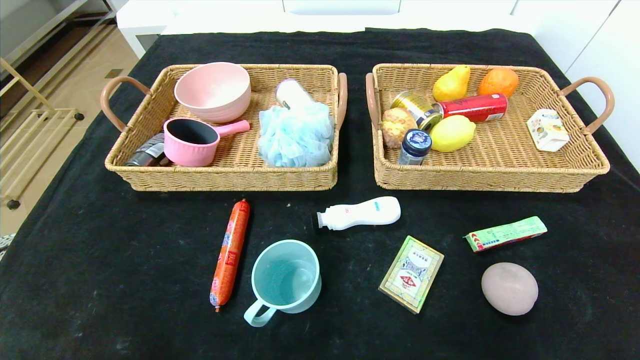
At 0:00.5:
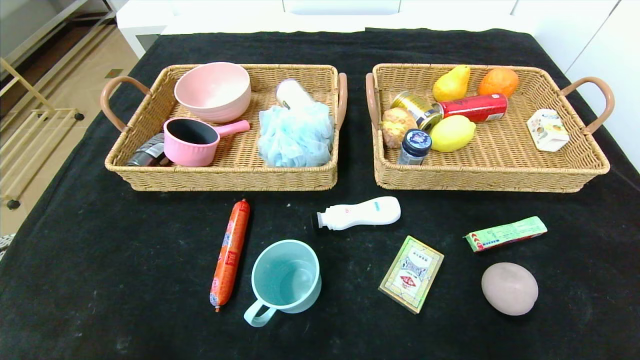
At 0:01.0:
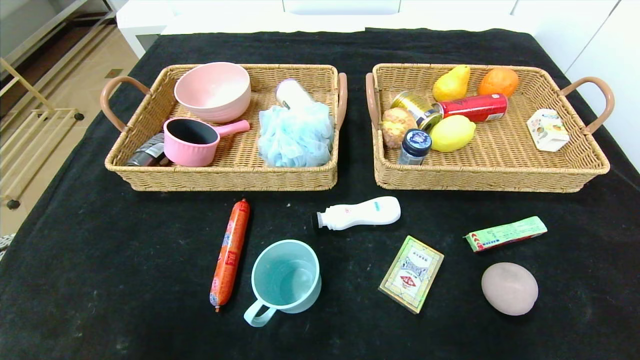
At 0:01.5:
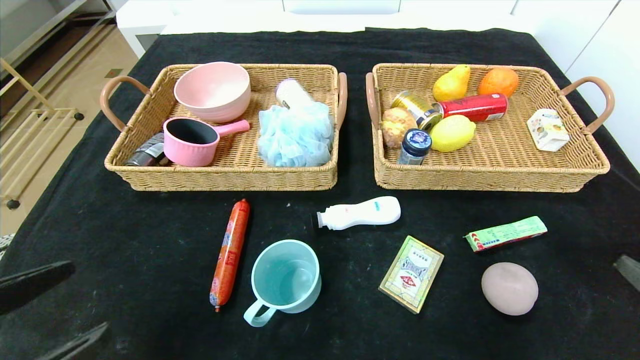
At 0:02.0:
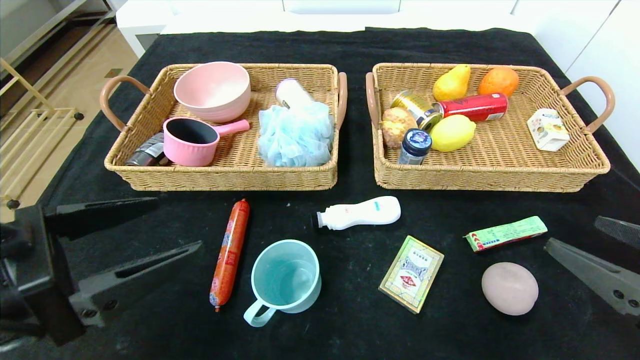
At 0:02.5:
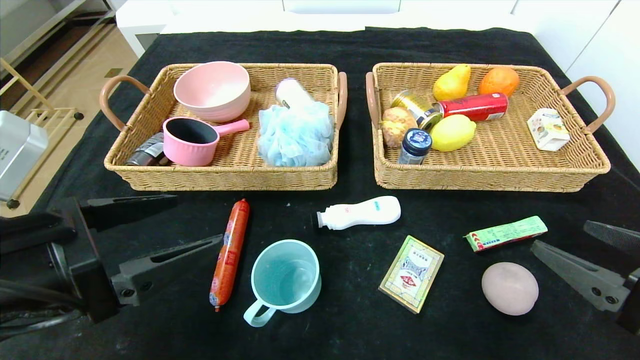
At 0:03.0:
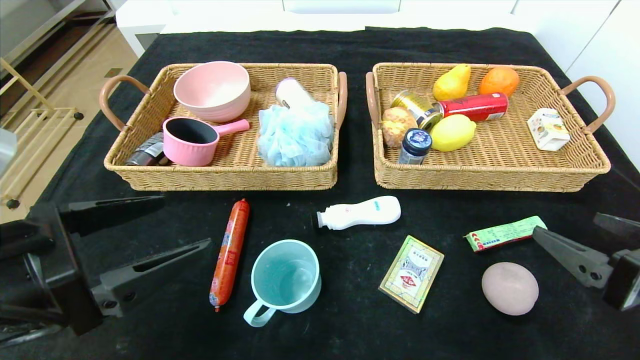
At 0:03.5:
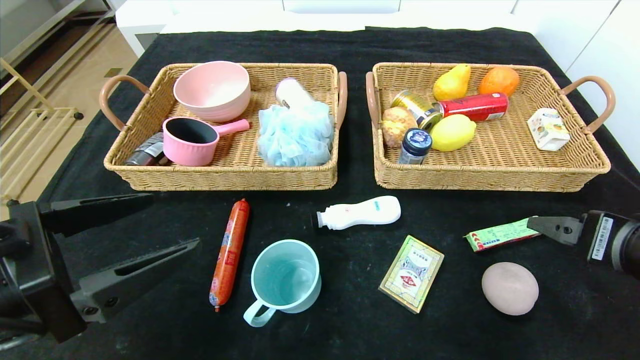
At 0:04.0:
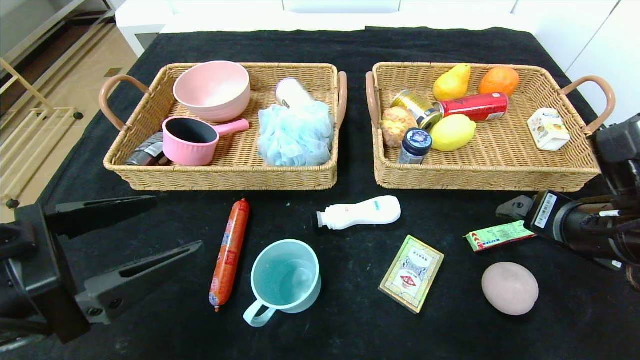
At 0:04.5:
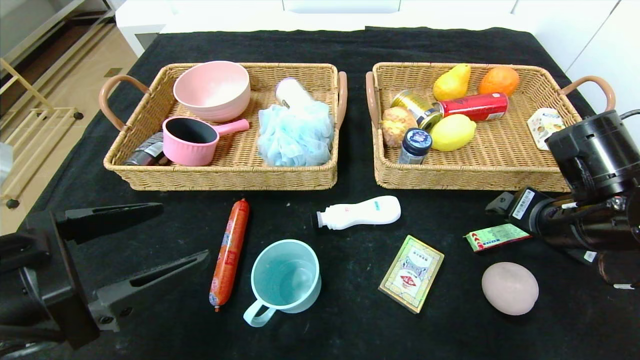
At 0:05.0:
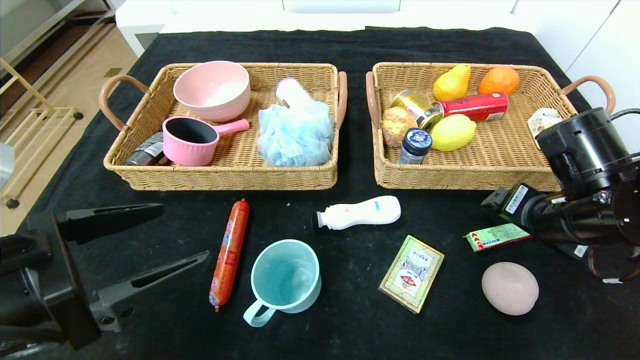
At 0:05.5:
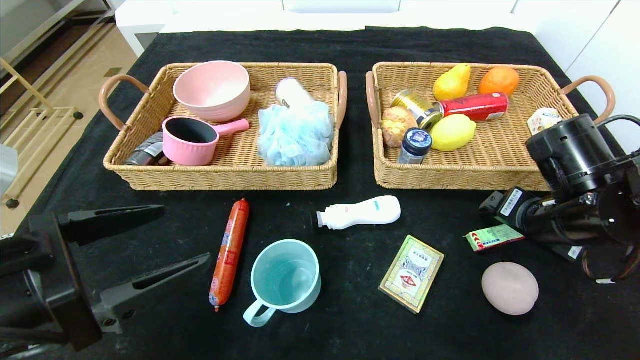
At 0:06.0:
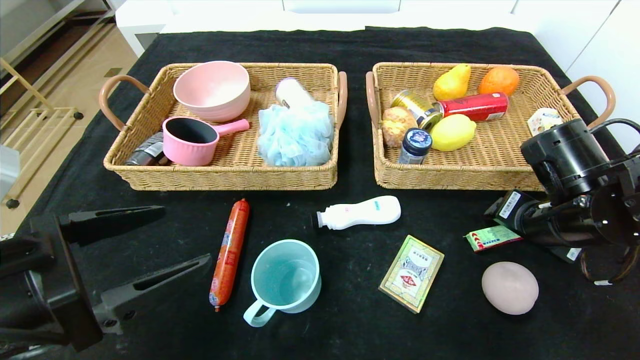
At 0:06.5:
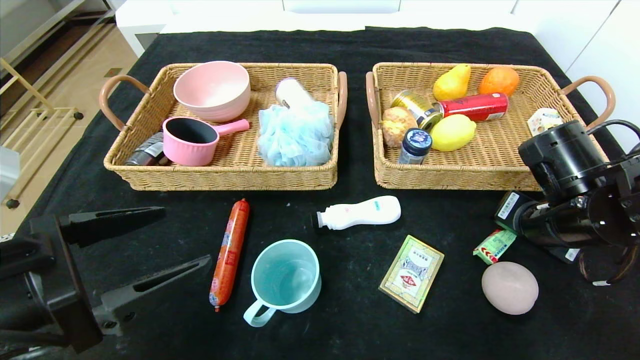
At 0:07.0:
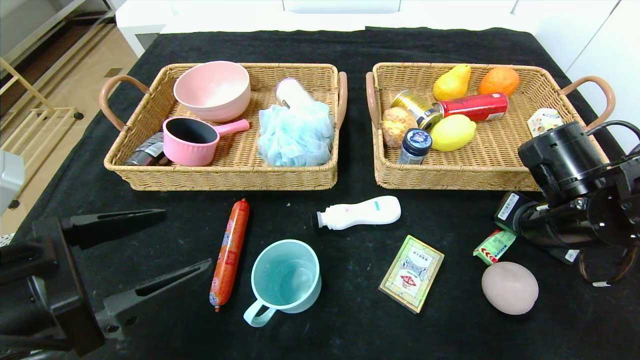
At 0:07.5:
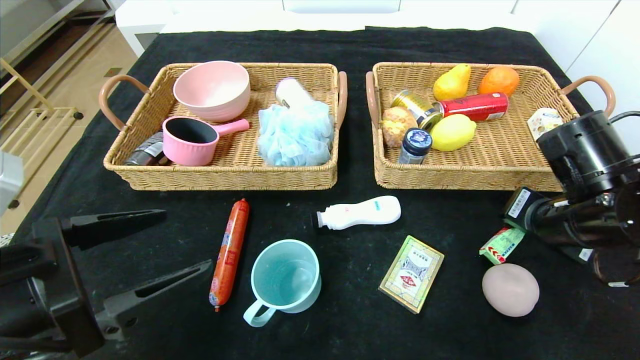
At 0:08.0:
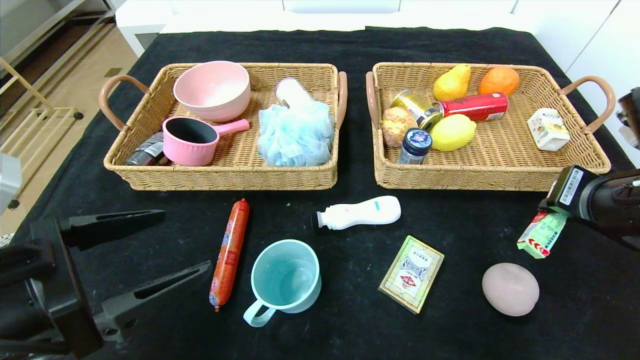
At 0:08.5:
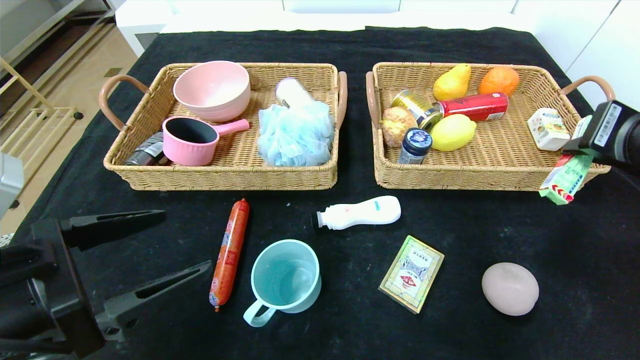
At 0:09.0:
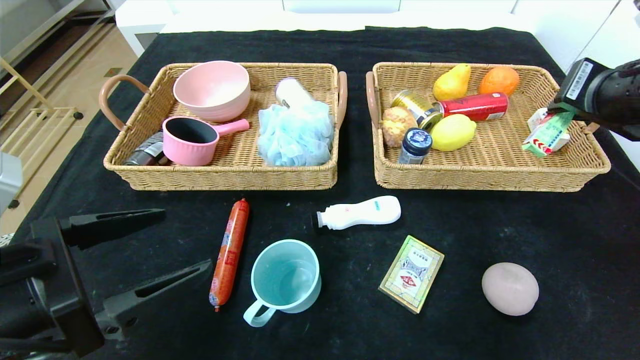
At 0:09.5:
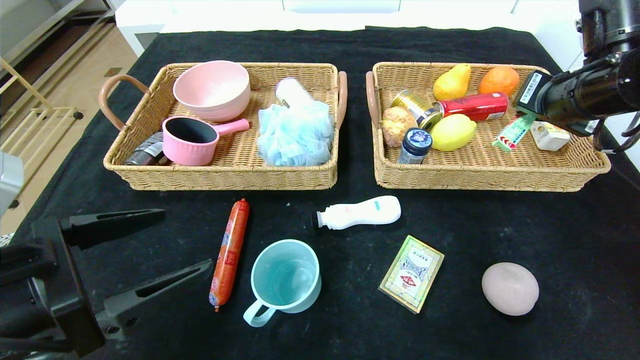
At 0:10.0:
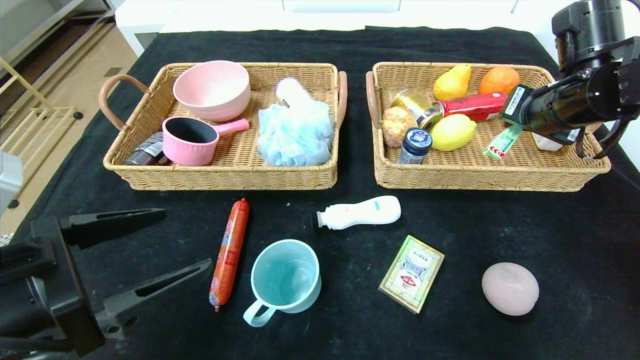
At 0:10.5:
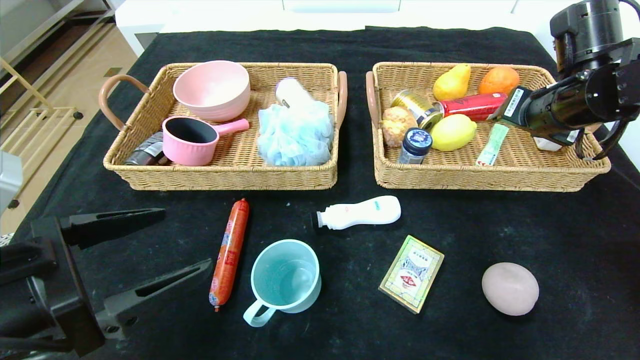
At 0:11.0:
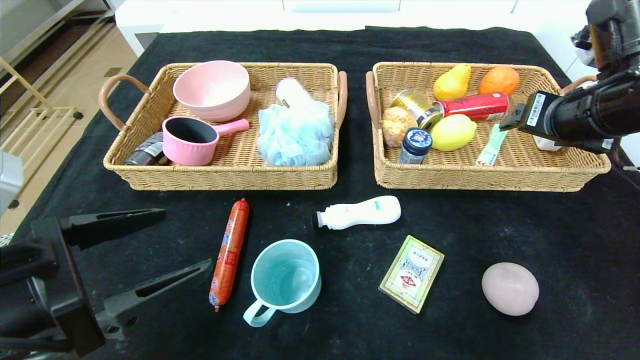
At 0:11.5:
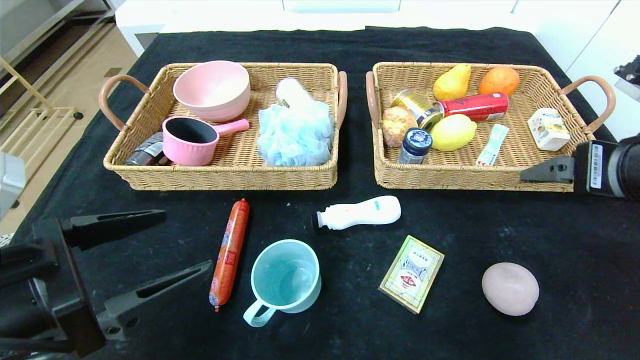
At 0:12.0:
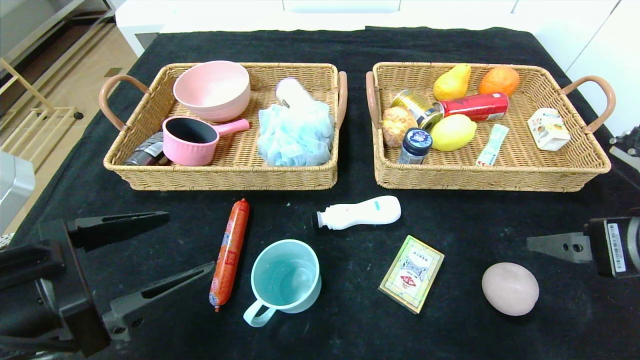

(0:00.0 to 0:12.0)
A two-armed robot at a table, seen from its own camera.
Step, 0:00.0 - 0:11.5: Pick up the fruit fudge and put it in the right basket.
0:00.0 - 0:02.0: The grippers both shift upward and forward by approximately 20 cm.
0:02.0 - 0:04.0: The right gripper travels forward by about 10 cm.
0:04.0 - 0:06.0: The right gripper moves forward, approximately 5 cm.
0:06.0 - 0:08.0: The right gripper goes some 10 cm upward and backward, and closes up.
0:08.0 - 0:10.0: The right gripper heads forward, covering some 15 cm.
0:10.0 - 0:12.0: The right gripper travels backward by some 20 cm, and opens.

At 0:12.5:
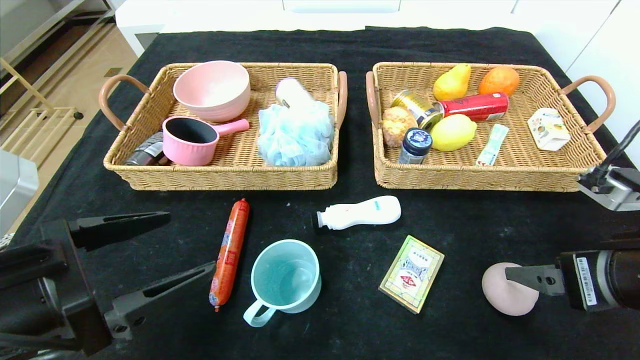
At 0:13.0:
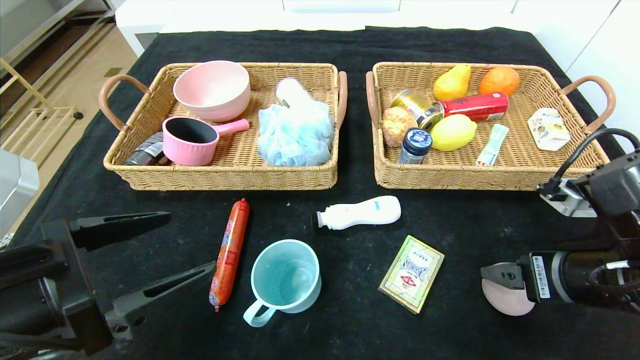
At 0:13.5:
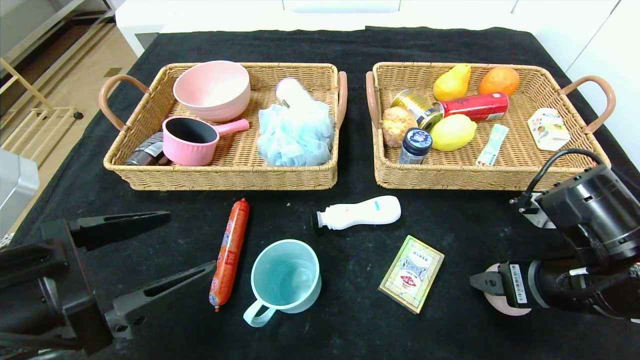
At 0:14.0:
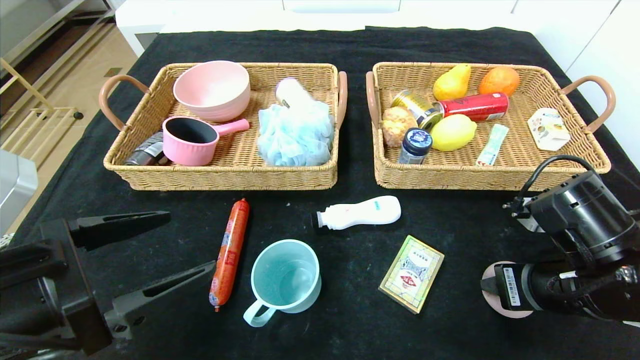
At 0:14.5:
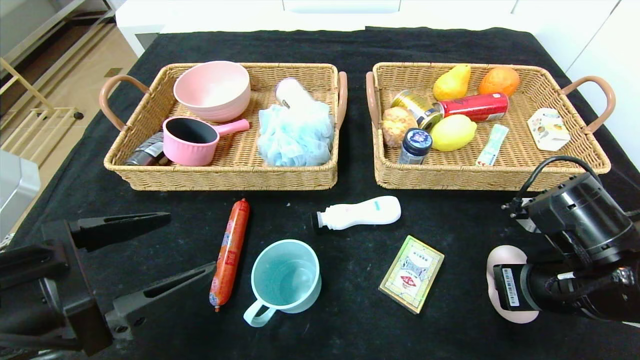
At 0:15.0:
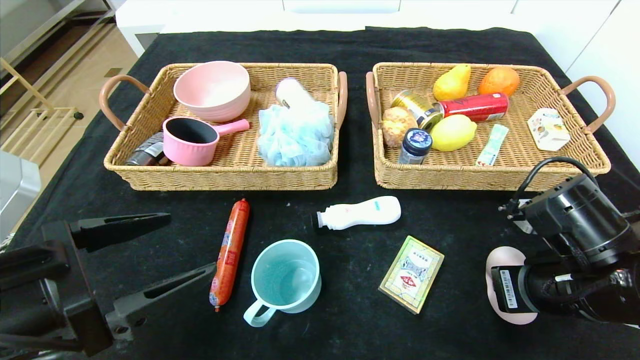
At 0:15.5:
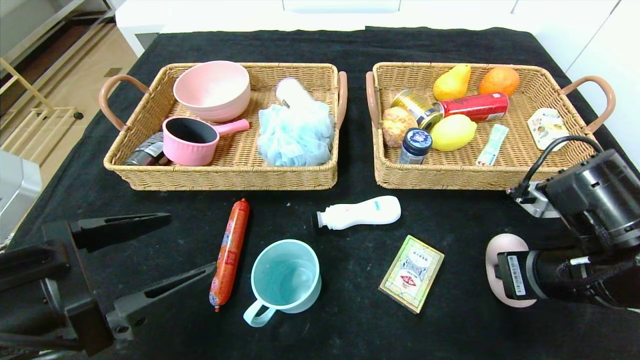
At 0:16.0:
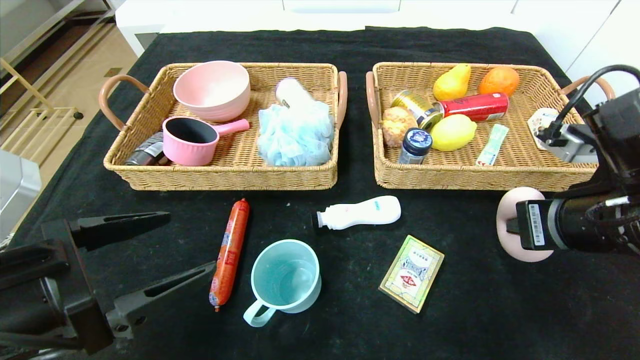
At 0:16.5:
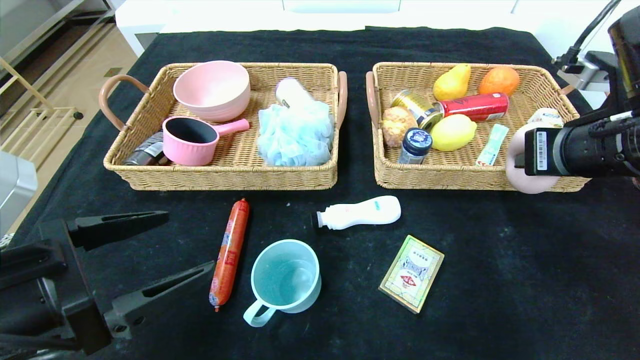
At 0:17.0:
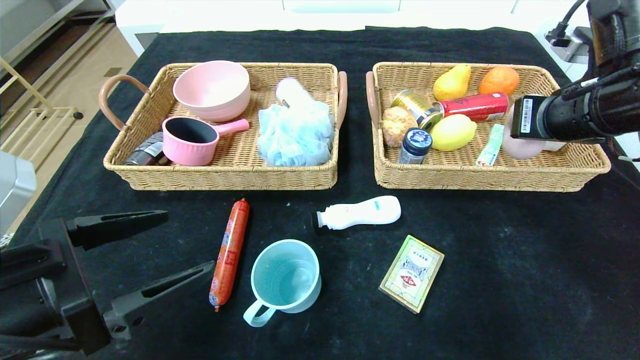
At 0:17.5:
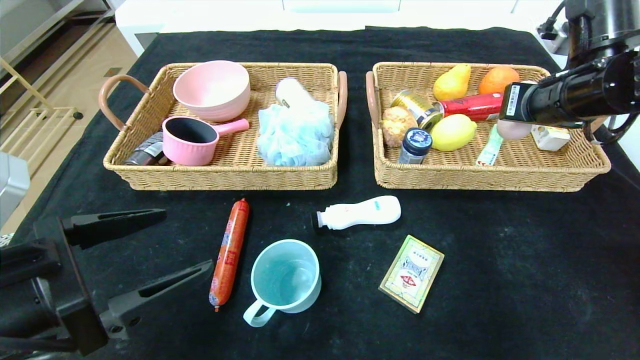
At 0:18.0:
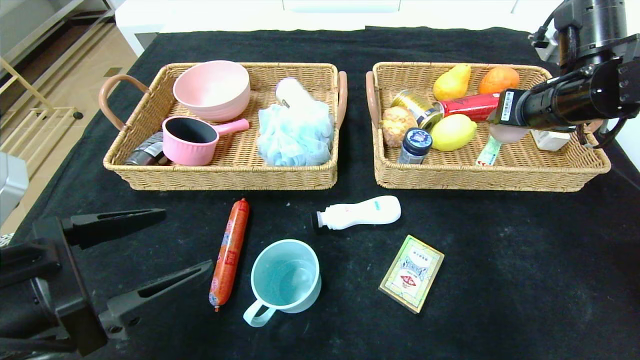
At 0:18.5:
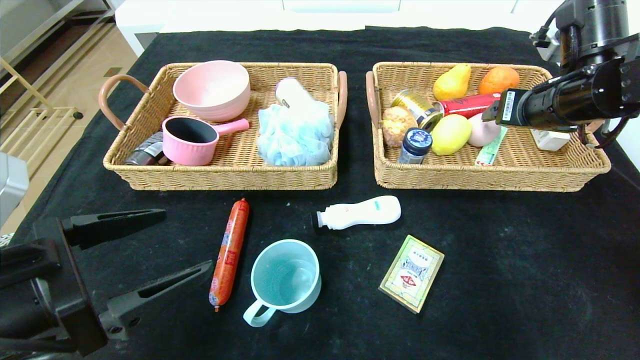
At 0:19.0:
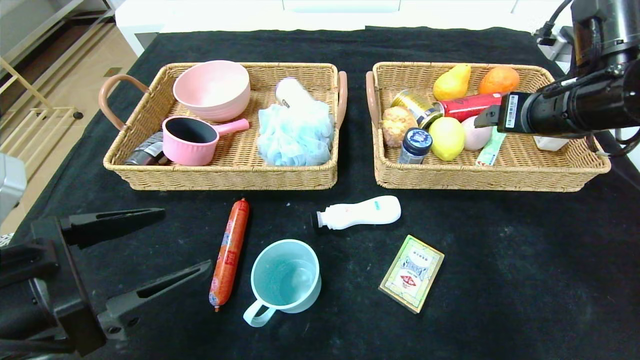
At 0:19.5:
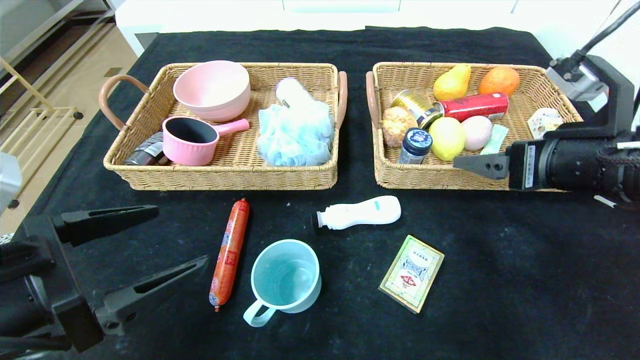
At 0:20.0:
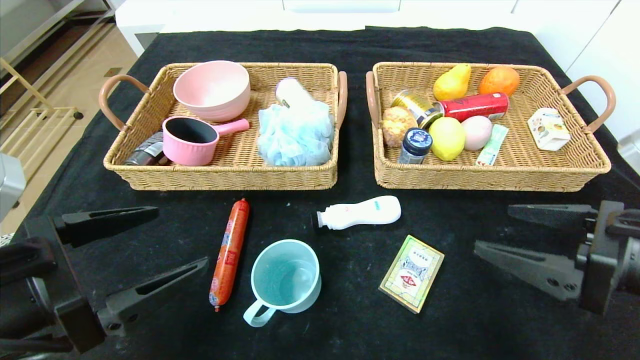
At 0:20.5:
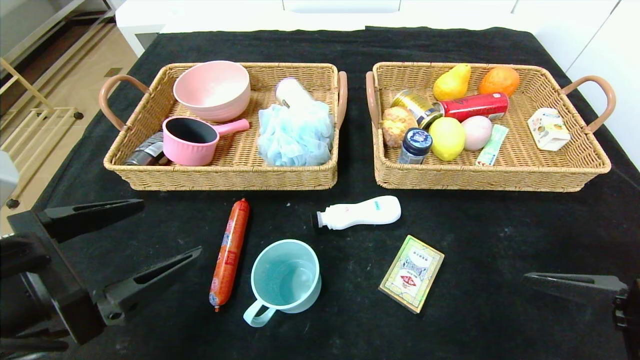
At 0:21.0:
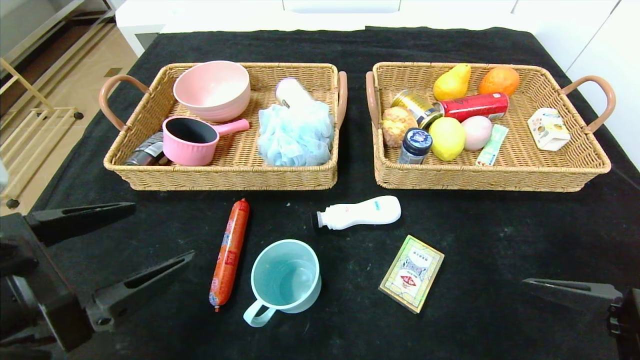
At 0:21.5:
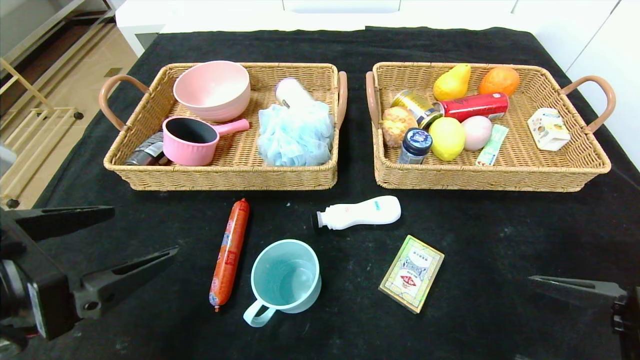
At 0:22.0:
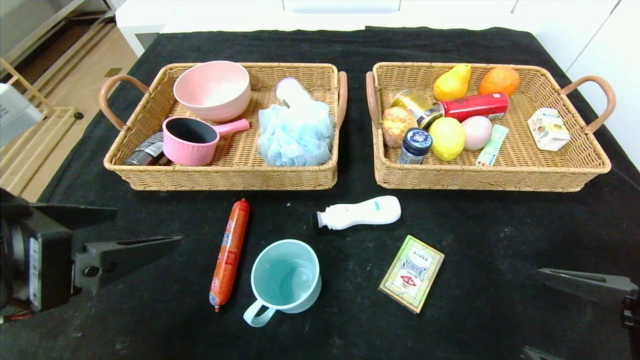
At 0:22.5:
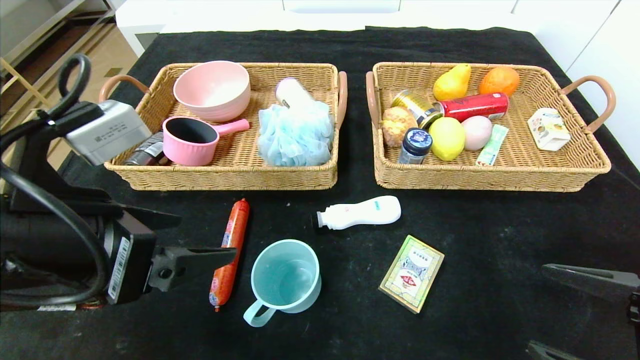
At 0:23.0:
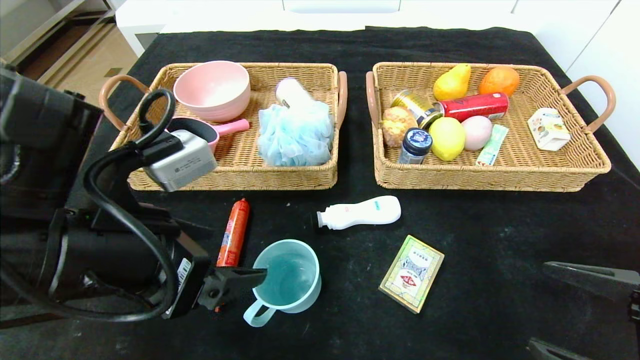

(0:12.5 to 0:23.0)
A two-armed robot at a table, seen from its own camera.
Step, 0:12.5 - 0:19.5: Pick up the peach and put it in the right basket.
0:12.5 - 0:14.5: The right gripper goes roughly 5 cm downward, and closes its fingers.
0:14.5 - 0:16.5: The right gripper moves upward, approximately 15 cm.
0:16.5 - 0:19.0: The right gripper is displaced forward by roughly 5 cm, and opens.
0:19.0 - 0:21.0: The right gripper travels backward and downward by roughly 25 cm.
0:21.0 - 0:23.0: The left gripper goes about 10 cm to the right and forward.
